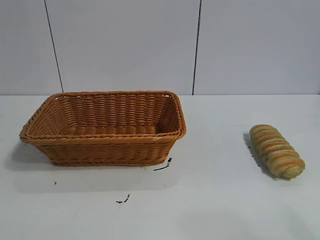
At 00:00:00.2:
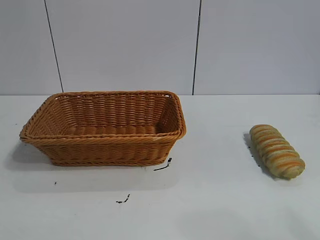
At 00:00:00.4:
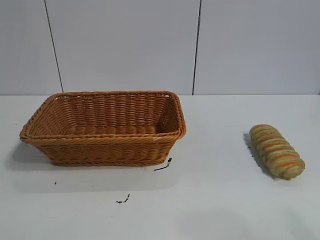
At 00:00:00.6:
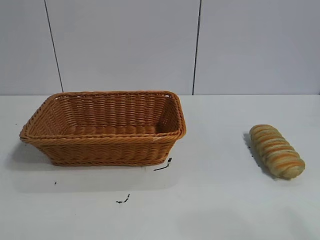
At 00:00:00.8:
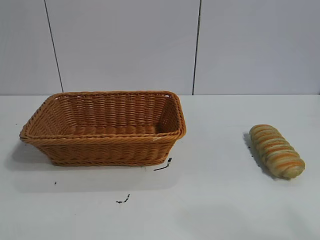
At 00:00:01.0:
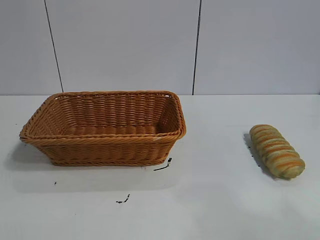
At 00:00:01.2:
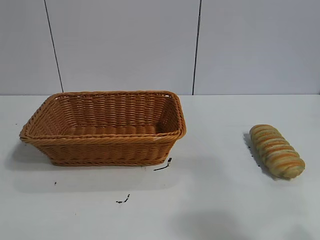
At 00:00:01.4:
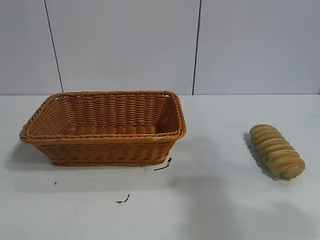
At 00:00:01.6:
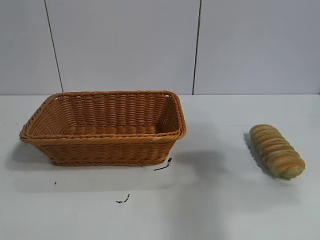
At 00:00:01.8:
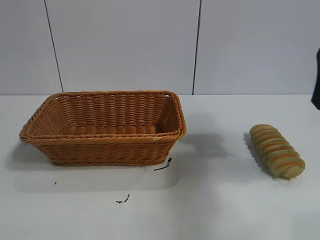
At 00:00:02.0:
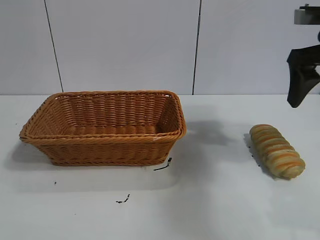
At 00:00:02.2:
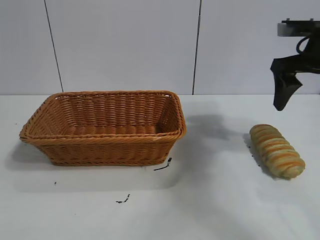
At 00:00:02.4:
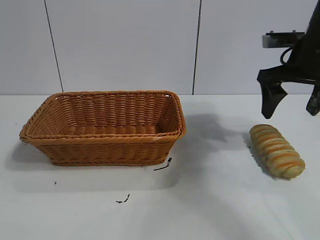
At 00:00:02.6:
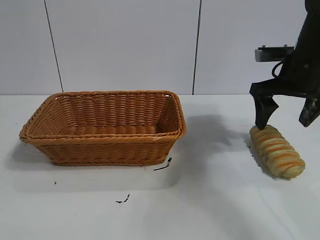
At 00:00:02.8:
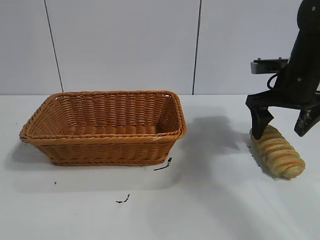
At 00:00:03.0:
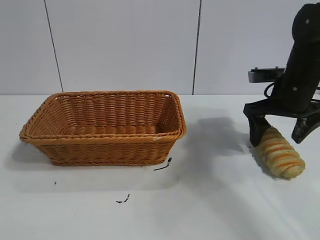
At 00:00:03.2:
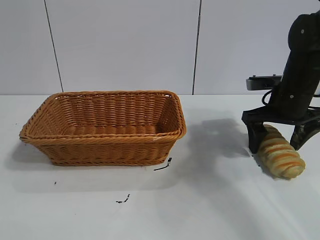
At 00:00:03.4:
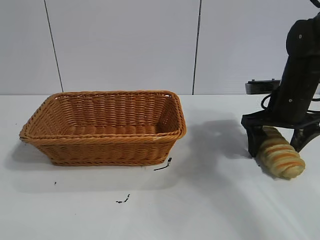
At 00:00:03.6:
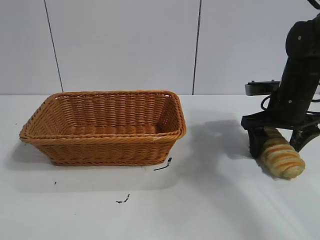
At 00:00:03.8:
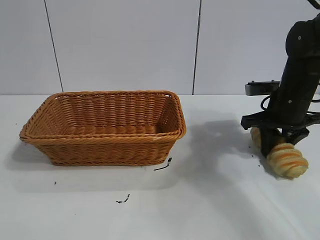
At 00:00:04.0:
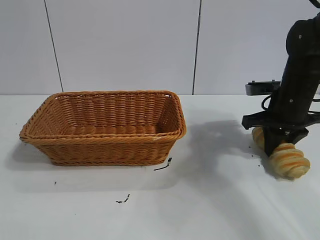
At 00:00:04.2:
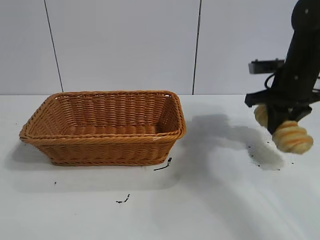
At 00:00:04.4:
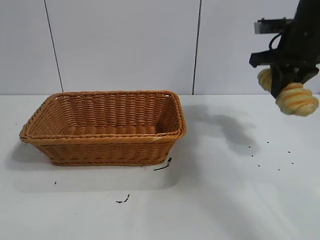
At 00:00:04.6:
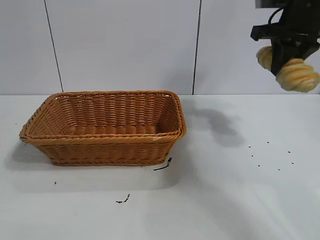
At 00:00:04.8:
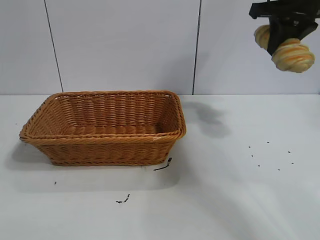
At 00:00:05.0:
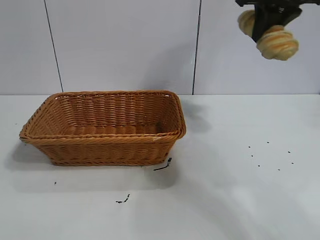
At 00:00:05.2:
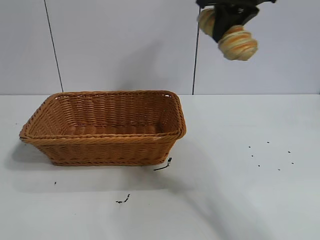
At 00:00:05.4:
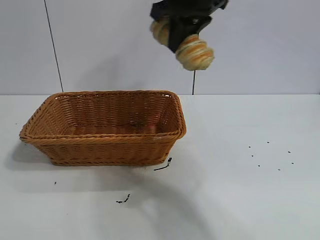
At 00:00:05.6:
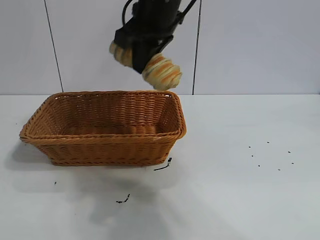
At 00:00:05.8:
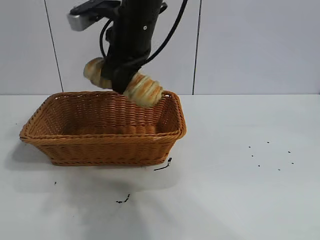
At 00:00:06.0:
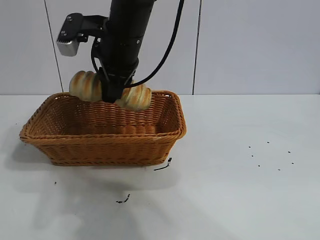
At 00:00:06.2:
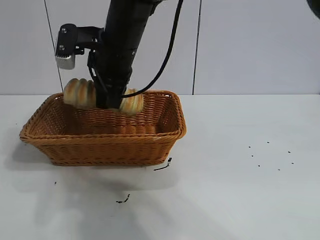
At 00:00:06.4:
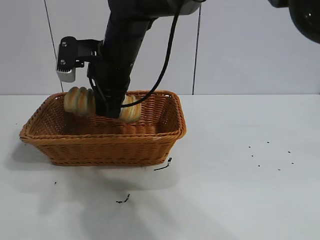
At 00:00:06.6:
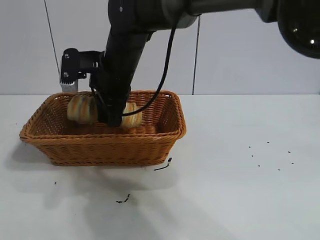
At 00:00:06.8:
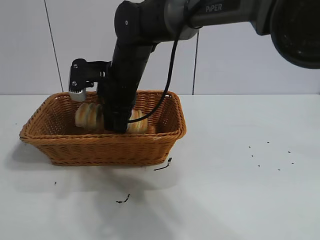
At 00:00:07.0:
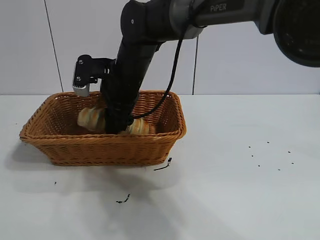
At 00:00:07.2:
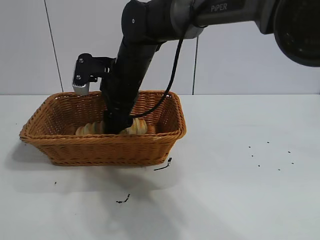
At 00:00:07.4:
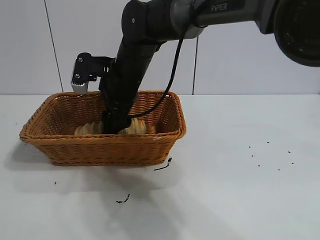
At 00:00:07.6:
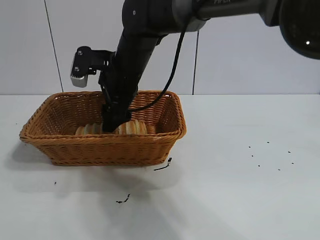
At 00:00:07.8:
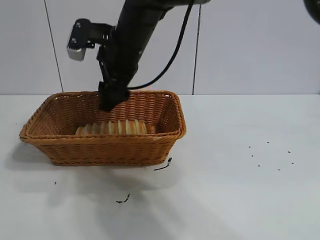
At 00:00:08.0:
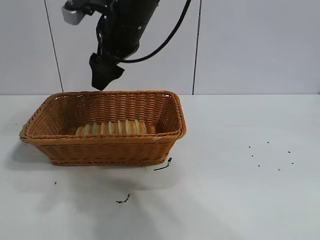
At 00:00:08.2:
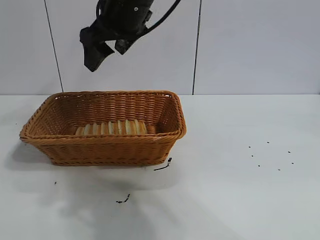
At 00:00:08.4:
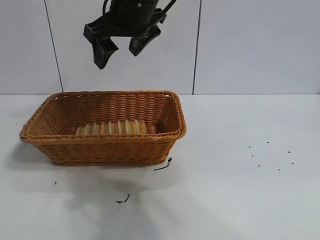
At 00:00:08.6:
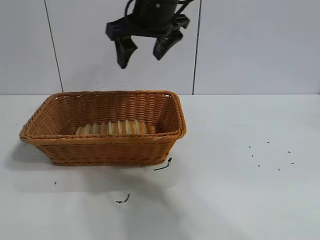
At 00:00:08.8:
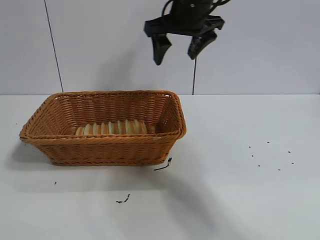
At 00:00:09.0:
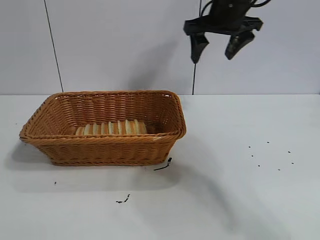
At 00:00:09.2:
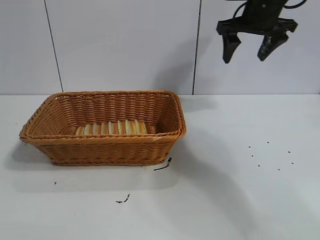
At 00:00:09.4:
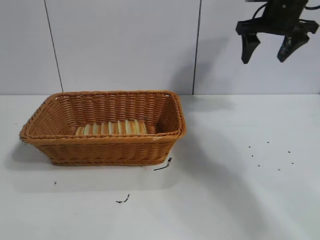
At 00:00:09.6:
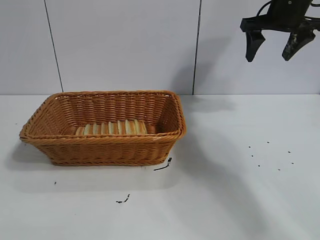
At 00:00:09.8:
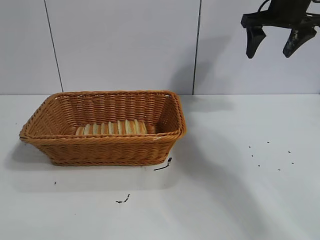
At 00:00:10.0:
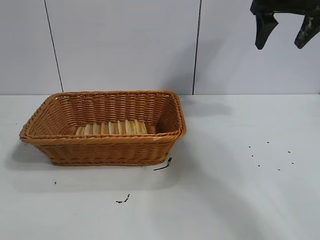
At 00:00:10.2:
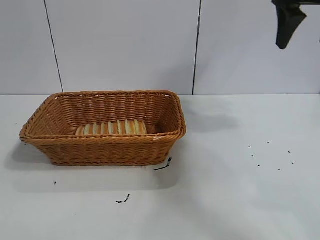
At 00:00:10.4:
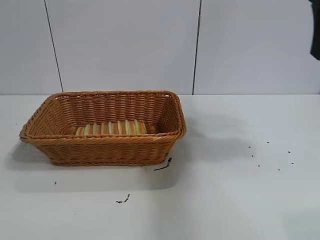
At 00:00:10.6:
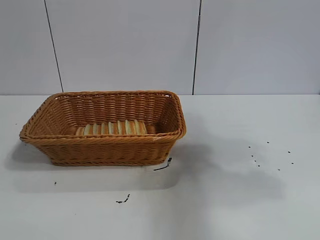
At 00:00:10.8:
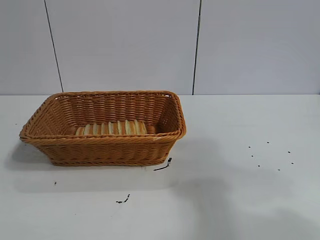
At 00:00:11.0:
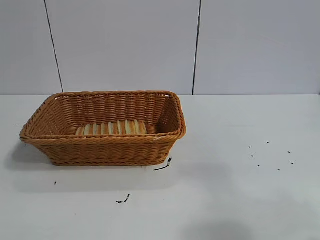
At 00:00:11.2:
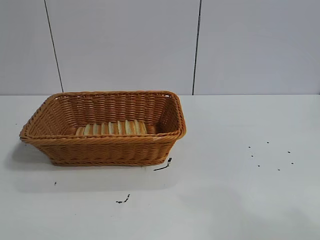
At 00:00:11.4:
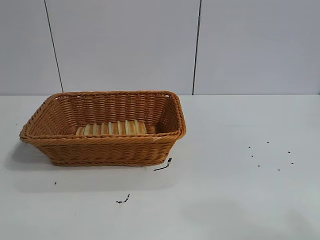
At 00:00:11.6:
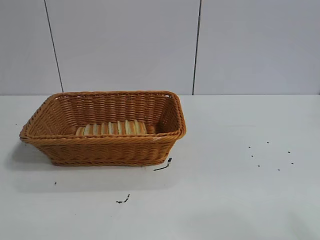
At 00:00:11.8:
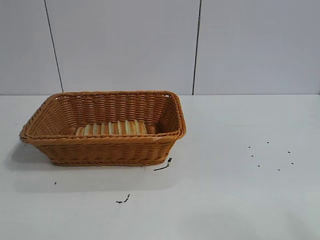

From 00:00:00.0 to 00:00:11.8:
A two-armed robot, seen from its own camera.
Task of the whole recording: pick up the long bread and put it into the basket.
Step, from 00:00:01.8 to 00:00:03.8: Grasp the long bread with right gripper.
Step, from 00:00:04.0 to 00:00:07.6: Place the long bread in the basket with right gripper.
